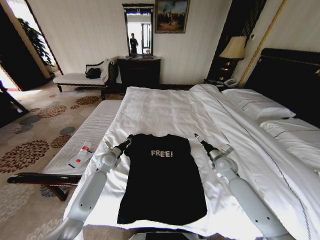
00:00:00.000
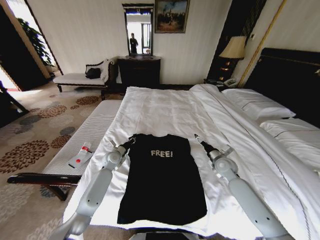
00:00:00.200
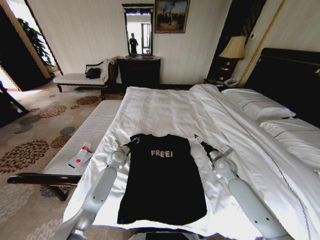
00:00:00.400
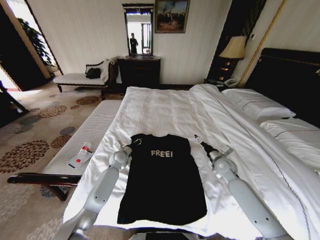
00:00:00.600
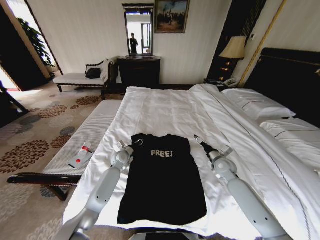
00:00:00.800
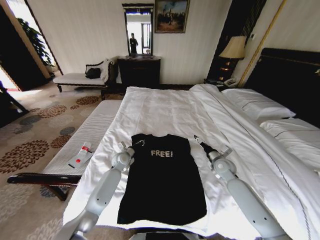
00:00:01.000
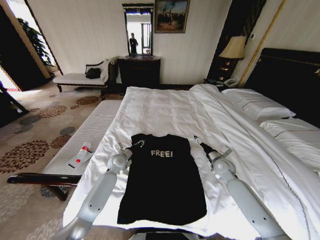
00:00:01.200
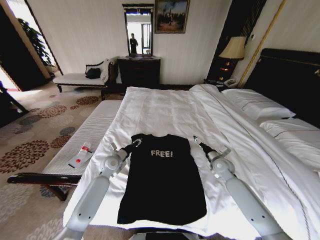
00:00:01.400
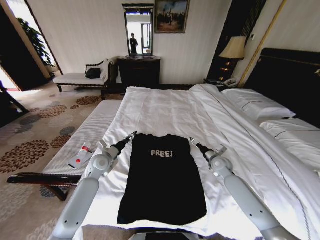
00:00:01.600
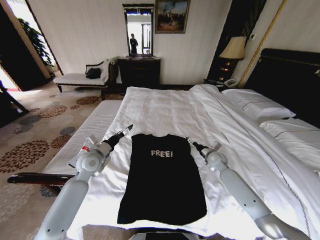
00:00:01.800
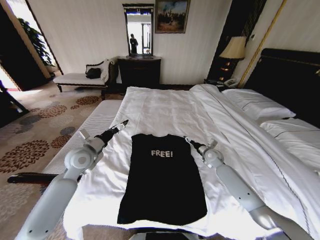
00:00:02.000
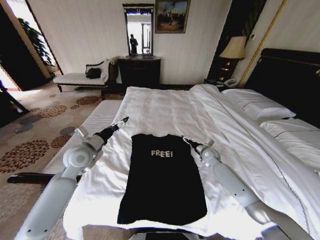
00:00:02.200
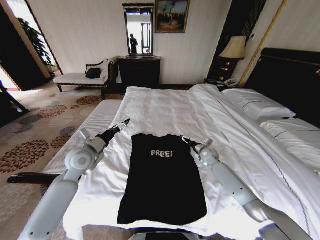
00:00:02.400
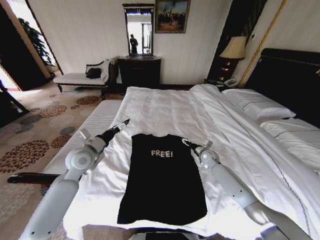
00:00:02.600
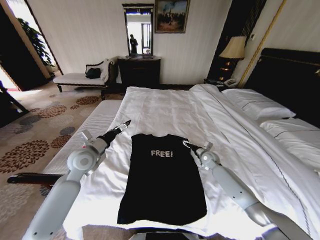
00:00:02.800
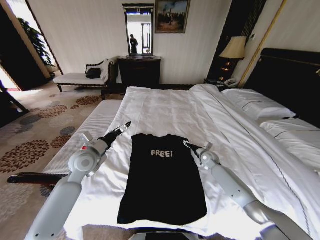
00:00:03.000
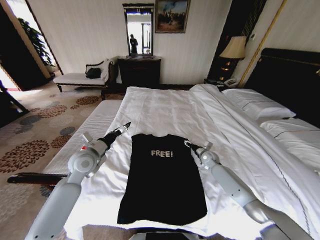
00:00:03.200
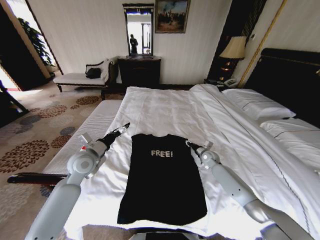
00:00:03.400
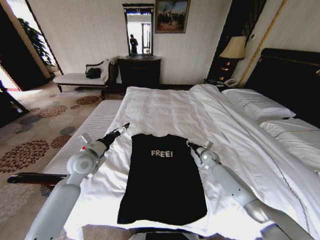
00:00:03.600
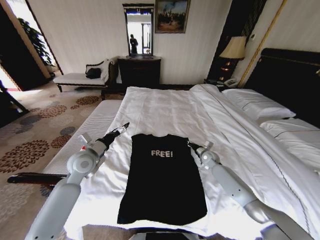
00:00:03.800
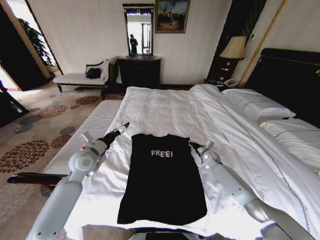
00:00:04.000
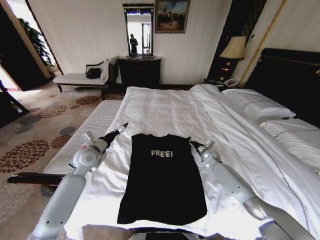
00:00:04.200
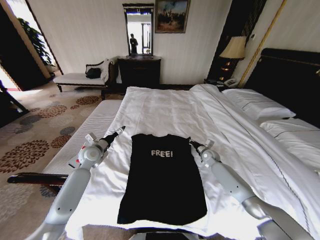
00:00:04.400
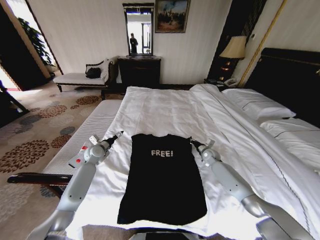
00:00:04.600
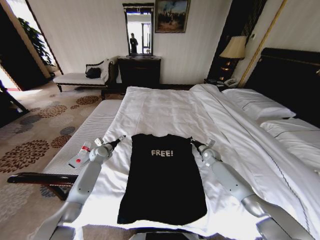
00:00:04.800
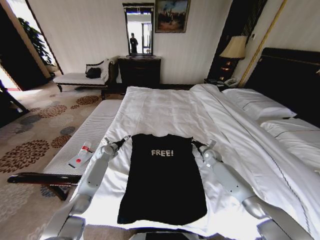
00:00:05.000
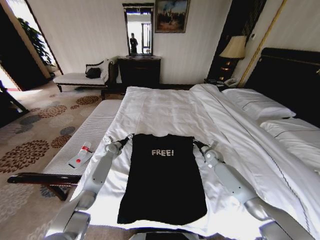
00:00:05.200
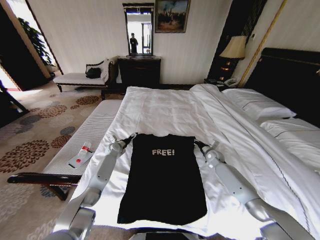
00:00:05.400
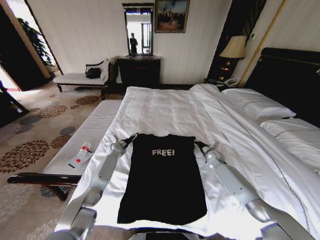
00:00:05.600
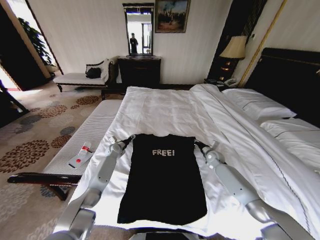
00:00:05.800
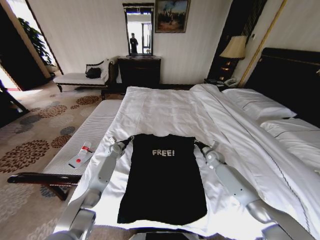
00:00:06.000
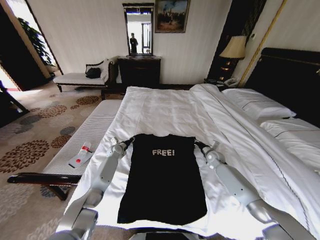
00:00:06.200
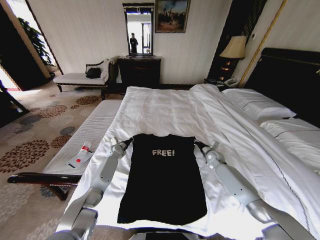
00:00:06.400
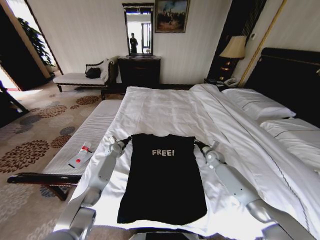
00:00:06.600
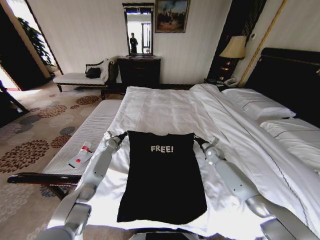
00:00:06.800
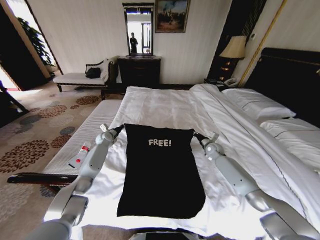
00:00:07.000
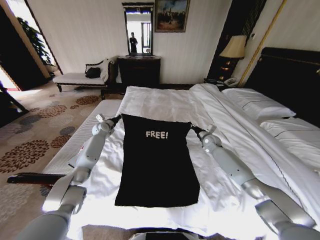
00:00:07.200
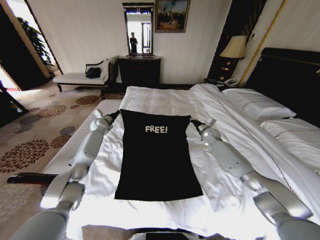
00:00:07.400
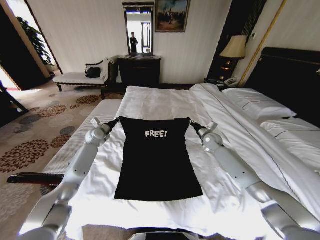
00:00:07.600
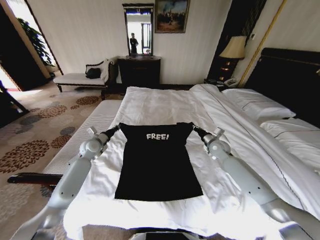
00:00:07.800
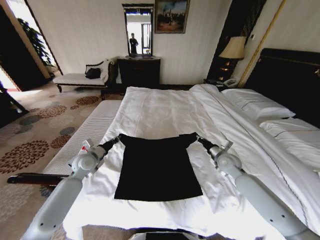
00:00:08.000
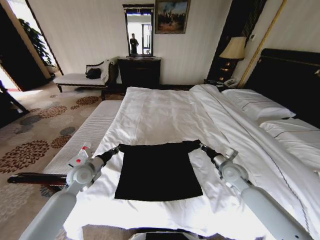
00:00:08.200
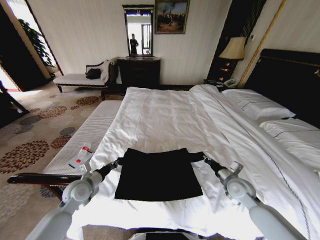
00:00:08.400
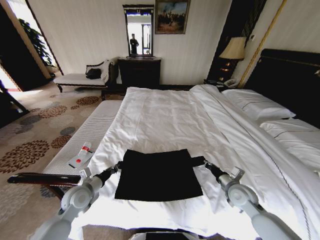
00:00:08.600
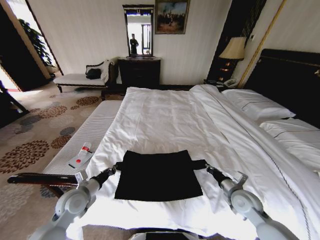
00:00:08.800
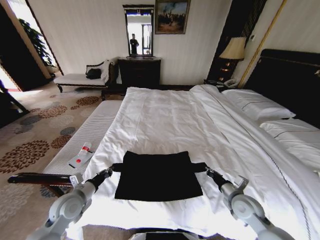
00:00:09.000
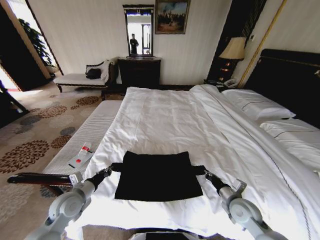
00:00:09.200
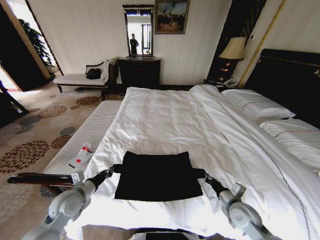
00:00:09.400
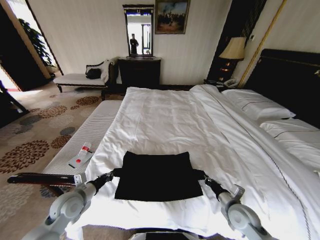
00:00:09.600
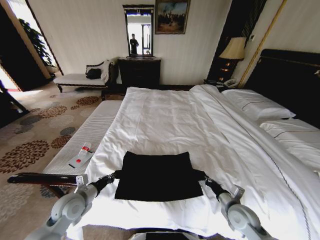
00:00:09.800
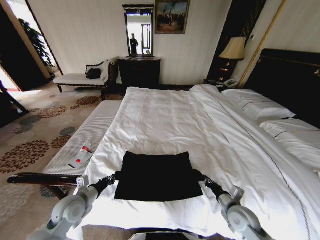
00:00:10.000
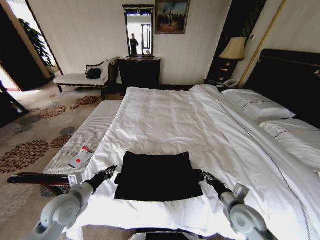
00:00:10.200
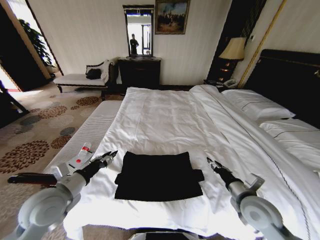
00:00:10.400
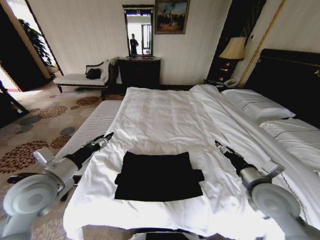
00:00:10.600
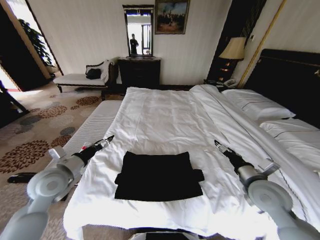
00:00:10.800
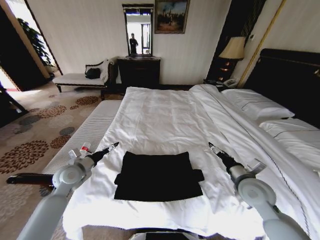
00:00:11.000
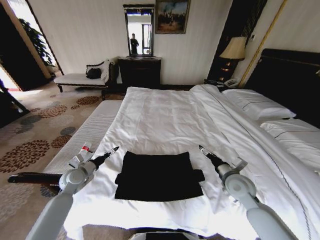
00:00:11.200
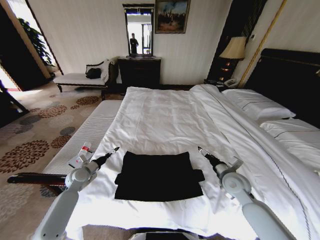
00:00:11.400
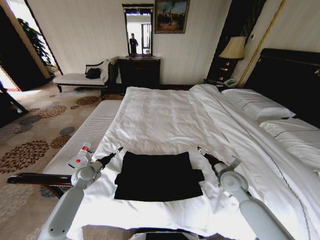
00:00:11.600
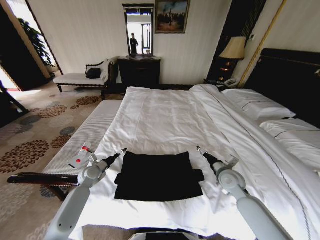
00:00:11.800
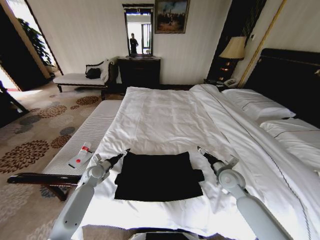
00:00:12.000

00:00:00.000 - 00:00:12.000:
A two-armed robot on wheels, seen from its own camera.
Task of the whole recording: Fold the clothes on the bed.
00:00:00.000 - 00:00:01.600: The left gripper goes approximately 10 cm upward and backward, and opens.
00:00:01.600 - 00:00:03.000: The right gripper travels forward by roughly 5 cm. Meanwhile the left gripper moves upward, some 10 cm.
00:00:03.000 - 00:00:04.400: The left gripper is displaced forward and downward by approximately 10 cm. Meanwhile the right gripper closes up.
00:00:04.400 - 00:00:06.000: The left gripper is displaced downward and forward by some 20 cm, and closes up.
00:00:06.000 - 00:00:07.600: The left gripper moves upward and to the left, roughly 15 cm, and closes up, while the right gripper goes roughly 15 cm upward and forward.
00:00:07.600 - 00:00:09.000: Both grippers move backward, some 35 cm.
00:00:09.000 - 00:00:10.400: The left gripper shifts some 10 cm upward, and opens up; the right gripper heads upward, covering some 5 cm, and opens up.
00:00:10.400 - 00:00:12.000: The right gripper moves forward, about 15 cm, and opens. Meanwhile the left gripper shifts roughly 25 cm downward and forward, and opens.

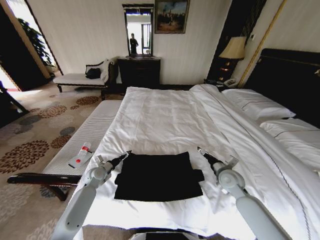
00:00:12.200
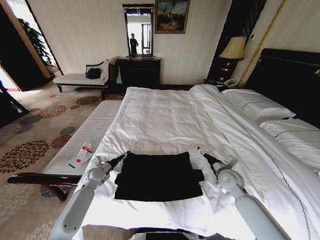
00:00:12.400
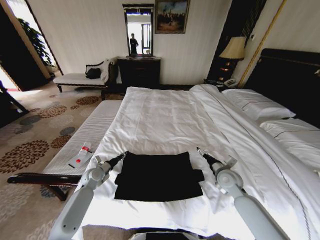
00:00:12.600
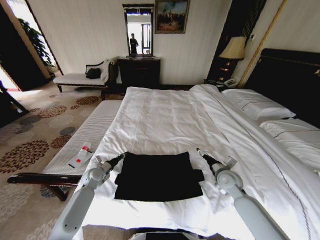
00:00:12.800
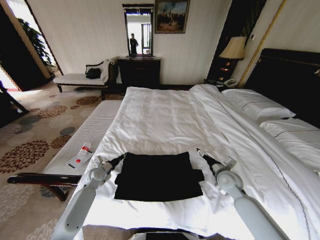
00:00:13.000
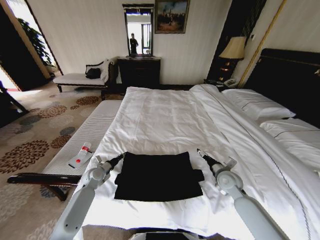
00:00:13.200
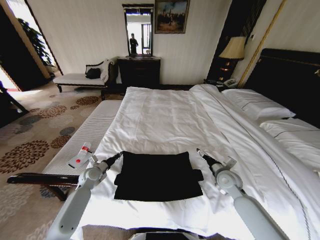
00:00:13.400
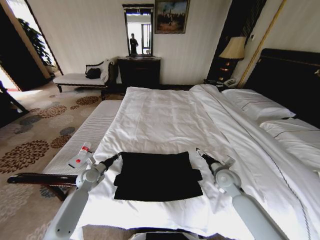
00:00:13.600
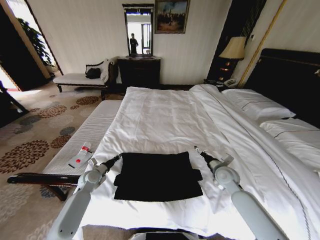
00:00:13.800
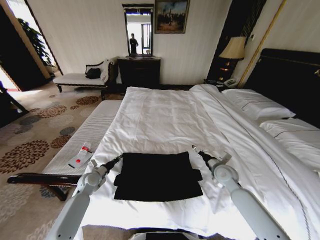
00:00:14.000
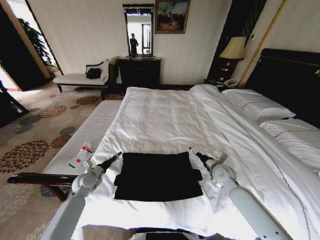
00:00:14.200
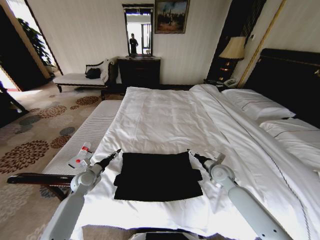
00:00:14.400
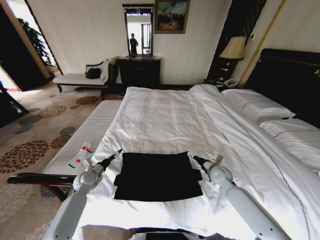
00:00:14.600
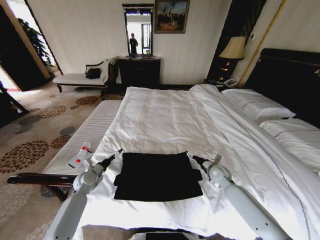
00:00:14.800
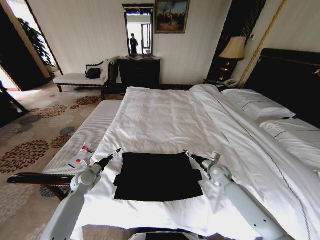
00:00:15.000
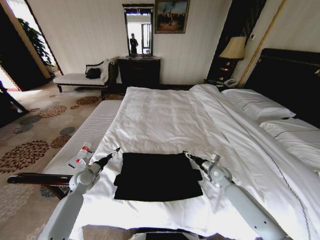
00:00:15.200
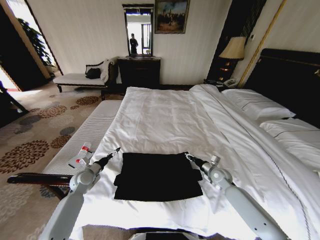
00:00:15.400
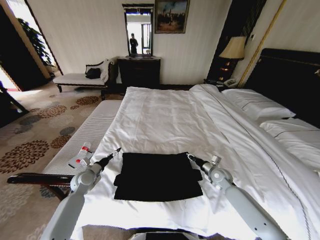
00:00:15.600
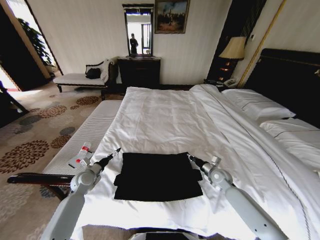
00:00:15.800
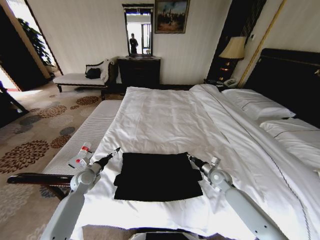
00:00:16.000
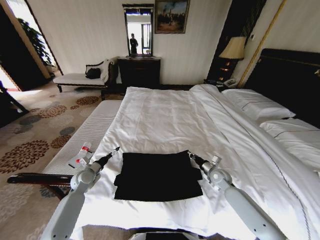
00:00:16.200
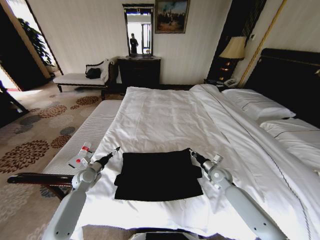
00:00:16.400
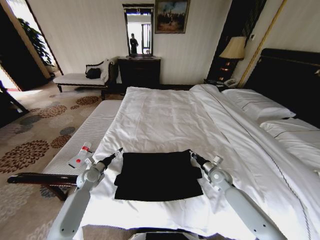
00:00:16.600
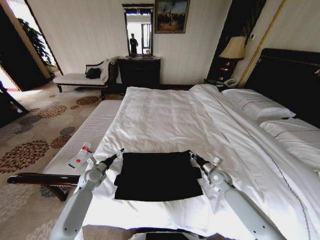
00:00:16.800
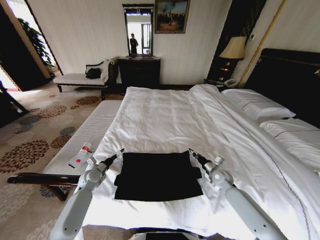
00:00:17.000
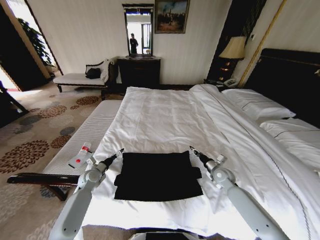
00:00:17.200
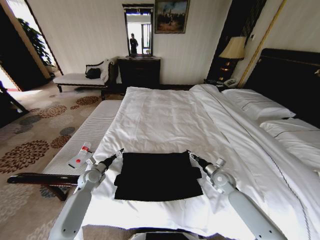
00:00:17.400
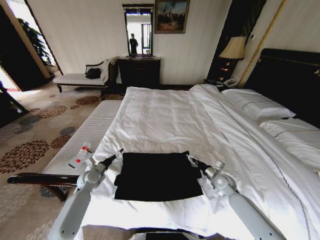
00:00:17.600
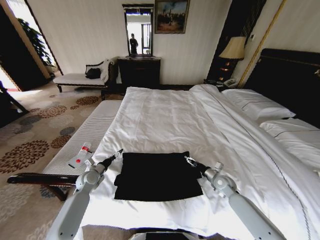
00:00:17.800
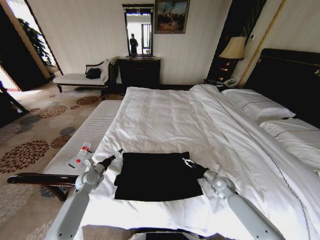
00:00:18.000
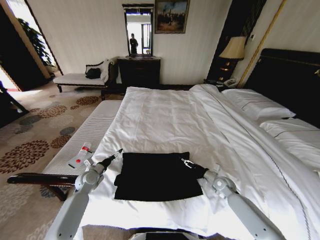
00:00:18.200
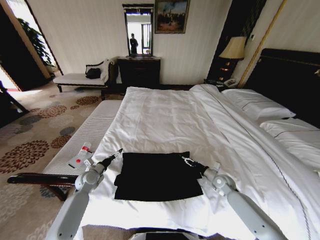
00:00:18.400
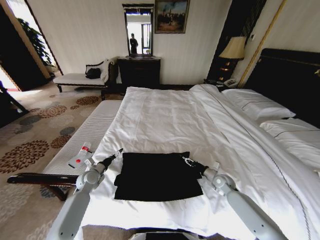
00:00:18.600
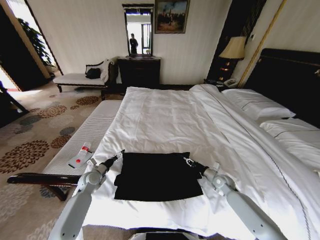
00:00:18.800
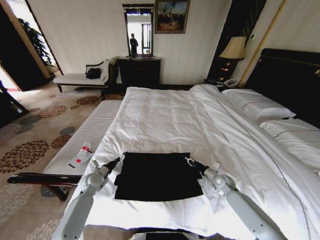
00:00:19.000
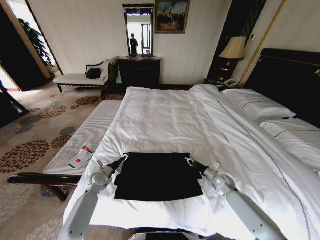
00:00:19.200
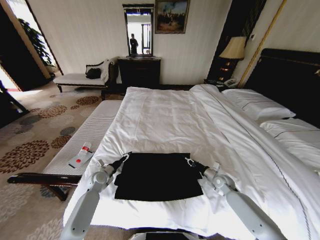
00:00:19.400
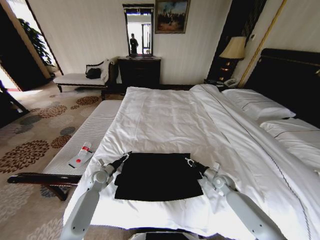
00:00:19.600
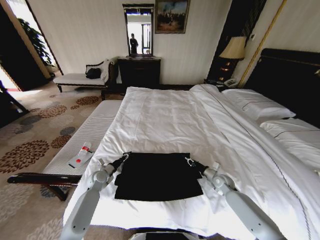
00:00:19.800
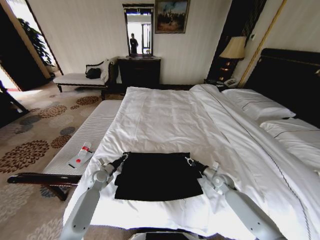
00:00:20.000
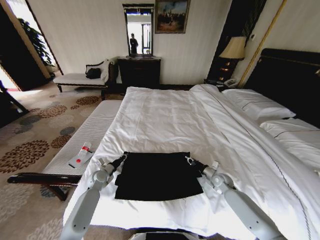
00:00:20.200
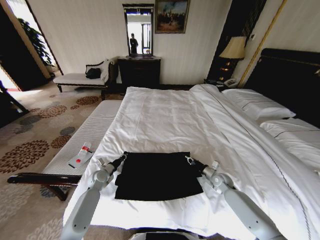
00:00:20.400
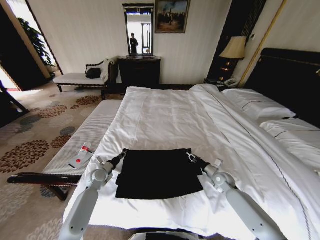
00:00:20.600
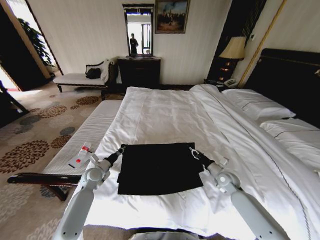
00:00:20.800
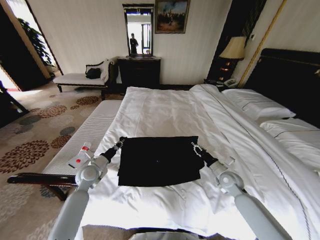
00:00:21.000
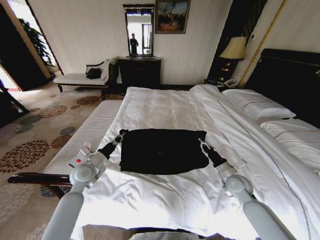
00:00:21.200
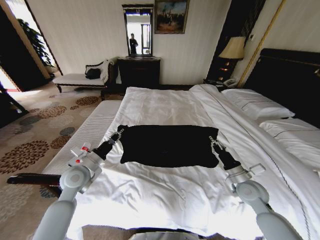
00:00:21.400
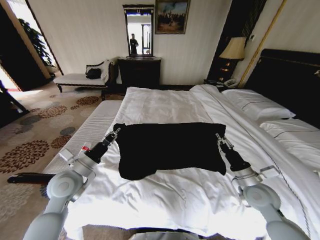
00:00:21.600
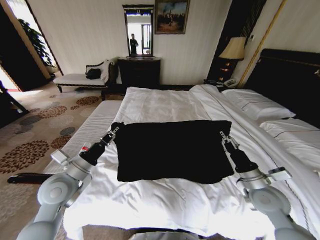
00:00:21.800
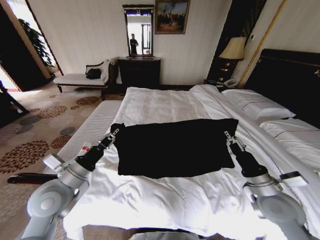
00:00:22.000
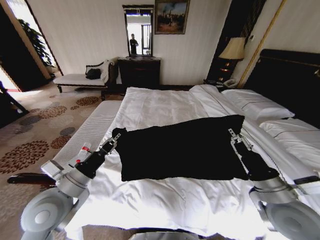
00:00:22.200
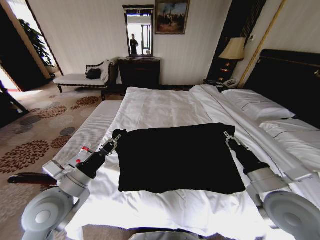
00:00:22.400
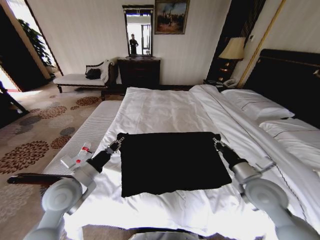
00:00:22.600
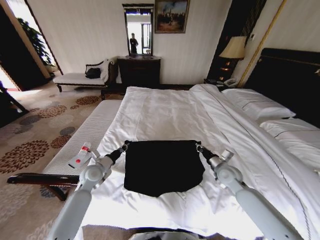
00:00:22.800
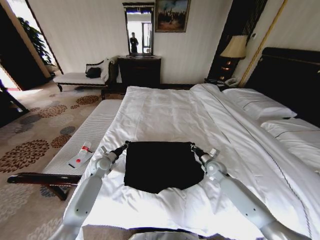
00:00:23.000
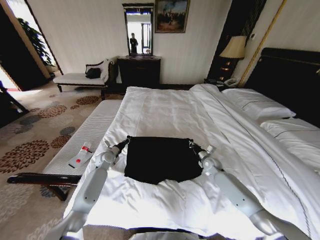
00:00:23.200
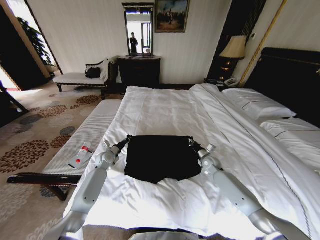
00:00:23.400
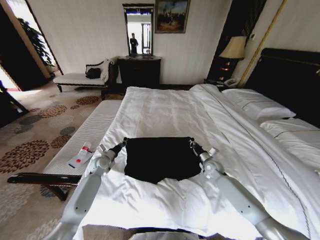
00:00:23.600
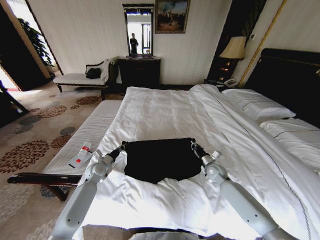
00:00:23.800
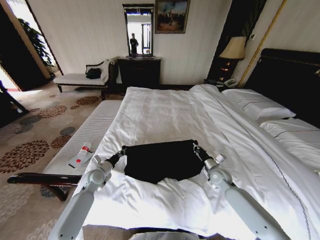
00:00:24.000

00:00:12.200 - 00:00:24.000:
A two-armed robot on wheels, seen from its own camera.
Task of the whole recording: Fold the clothes on the bed.
00:00:12.200 - 00:00:13.600: The left gripper closes.
00:00:13.600 - 00:00:15.200: The right gripper shifts by roughly 5 cm; the left gripper opens up.
00:00:15.200 - 00:00:16.600: The right gripper closes its fingers.
00:00:16.600 - 00:00:18.200: The right gripper shifts by approximately 5 cm, and opens up.
00:00:18.200 - 00:00:19.600: The right gripper closes up. The left gripper ends up approximately 5 cm from where it was.
00:00:19.600 - 00:00:21.000: The grippers both shift upward by about 10 cm. The left gripper closes its fingers.
00:00:21.000 - 00:00:22.600: The left gripper is displaced backward and upward by approximately 15 cm; the right gripper travels upward and backward by roughly 20 cm.
00:00:22.600 - 00:00:24.000: Both grippers travel together downward and forward, roughly 25 cm.
